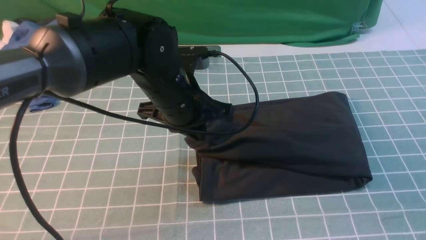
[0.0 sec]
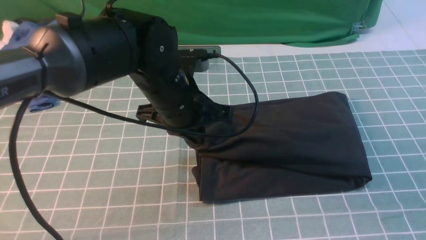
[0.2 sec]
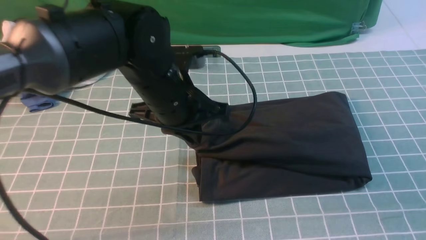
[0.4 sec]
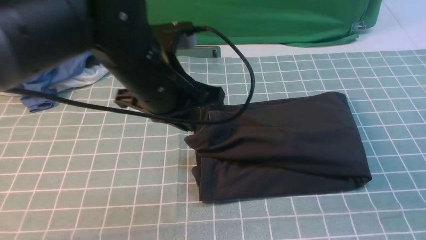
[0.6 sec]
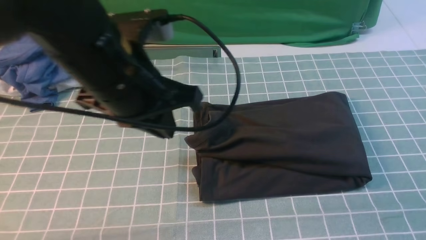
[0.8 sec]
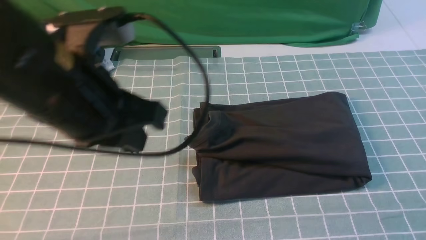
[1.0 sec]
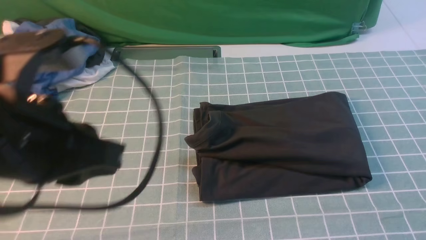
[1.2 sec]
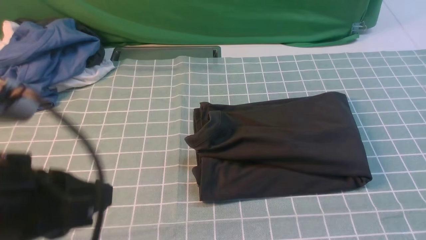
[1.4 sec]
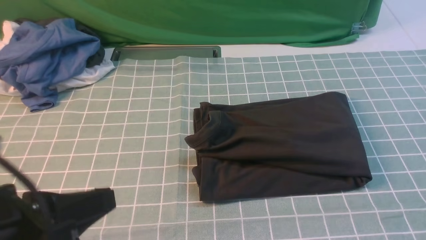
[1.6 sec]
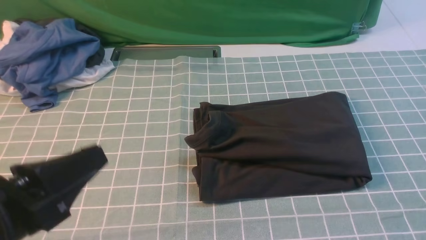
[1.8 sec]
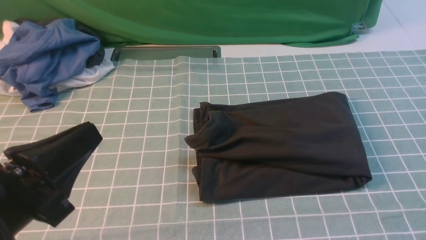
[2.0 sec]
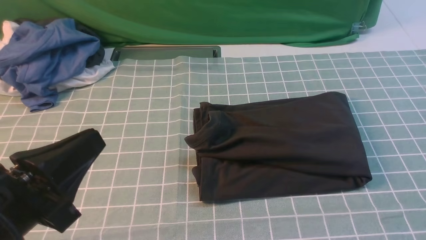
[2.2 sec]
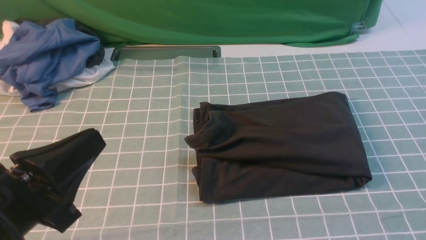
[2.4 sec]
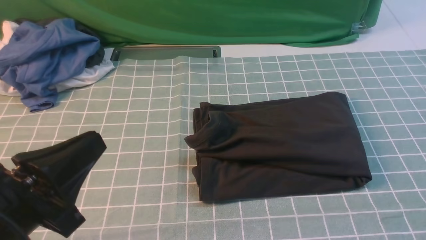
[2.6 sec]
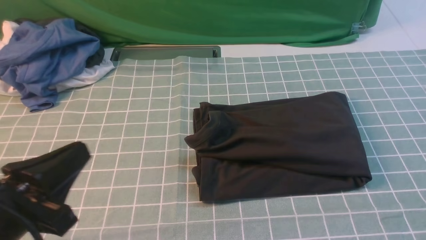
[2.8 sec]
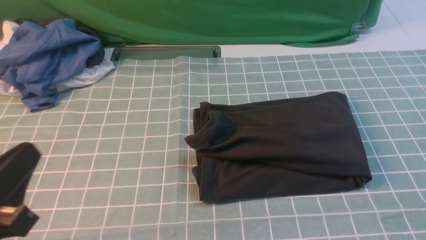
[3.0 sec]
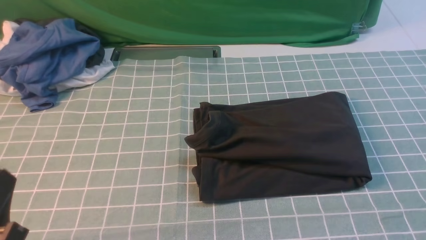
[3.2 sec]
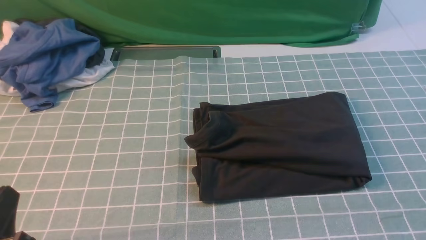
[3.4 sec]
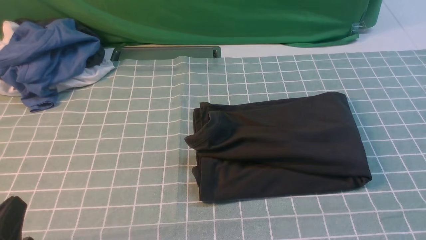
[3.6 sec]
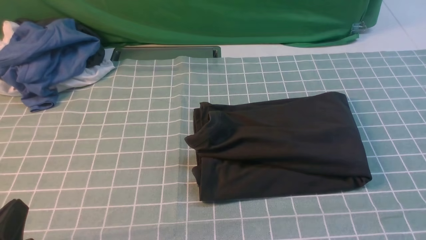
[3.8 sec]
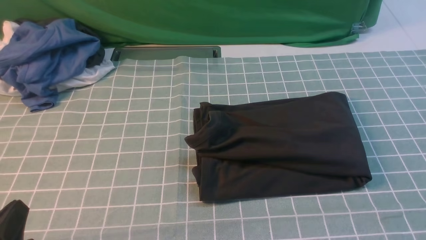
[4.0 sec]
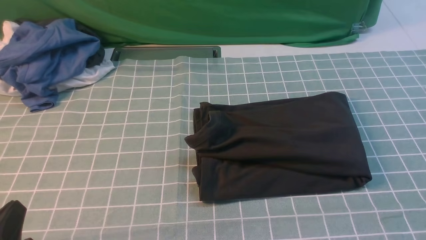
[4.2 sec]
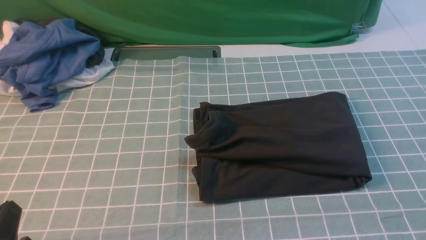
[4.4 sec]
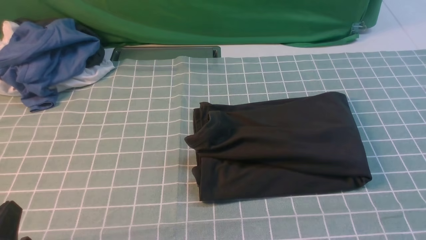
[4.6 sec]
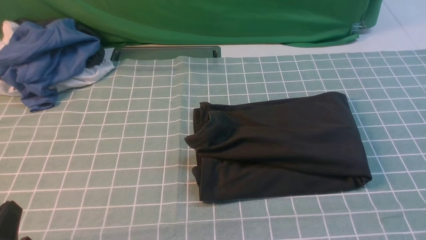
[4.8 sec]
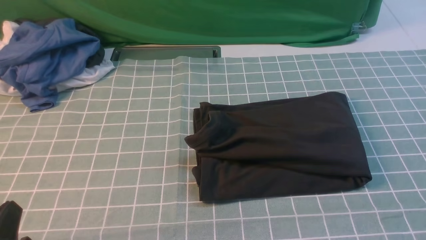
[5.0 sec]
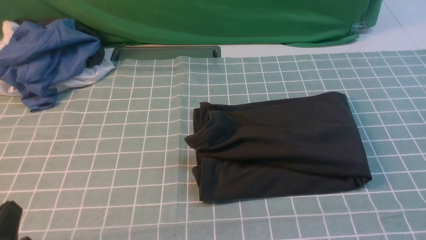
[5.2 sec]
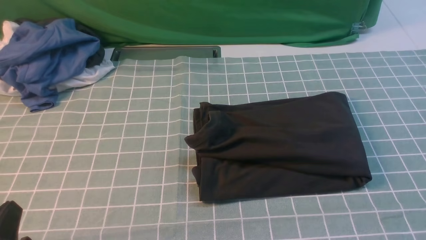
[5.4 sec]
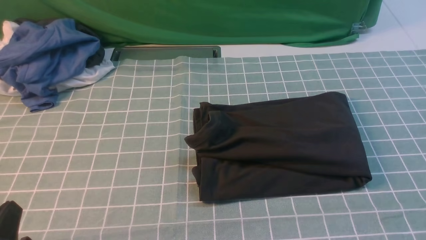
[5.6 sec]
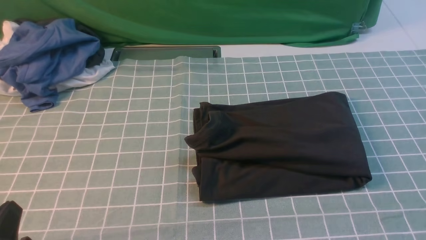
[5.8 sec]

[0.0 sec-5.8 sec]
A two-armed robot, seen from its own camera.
0.0 sec to 1.4 sec: The left gripper moves backward and to the left, about 25 cm.
1.4 sec to 2.8 sec: The left gripper is displaced downward by about 5 cm.
2.8 sec to 4.4 sec: The left gripper is displaced downward by roughly 10 cm.
4.4 sec to 5.8 sec: Both grippers stay about where they are.
